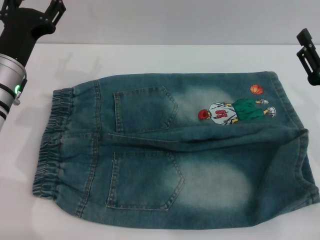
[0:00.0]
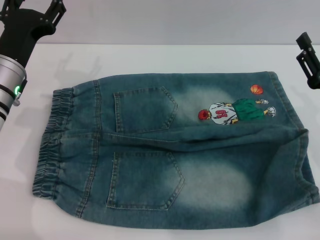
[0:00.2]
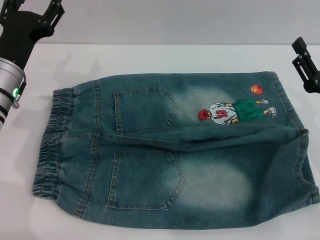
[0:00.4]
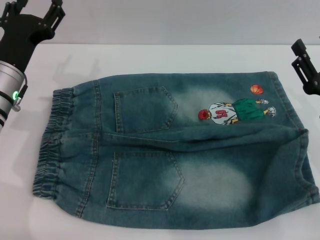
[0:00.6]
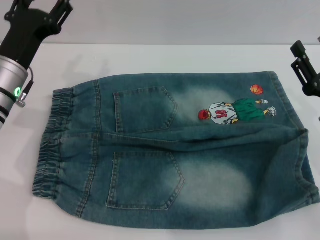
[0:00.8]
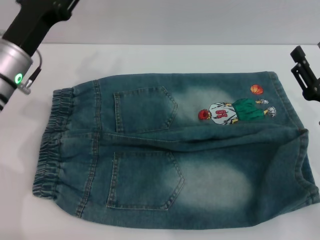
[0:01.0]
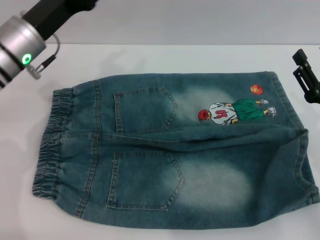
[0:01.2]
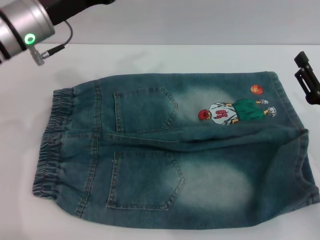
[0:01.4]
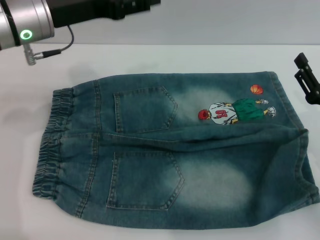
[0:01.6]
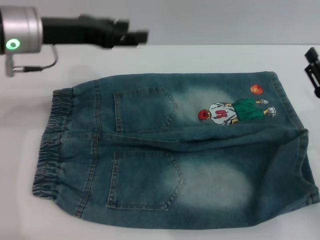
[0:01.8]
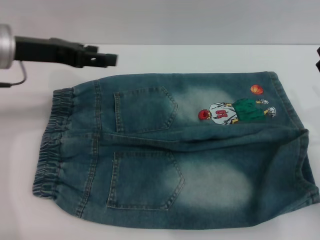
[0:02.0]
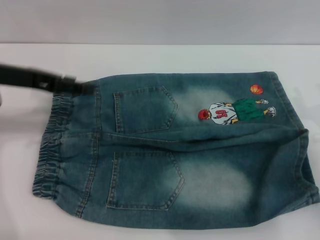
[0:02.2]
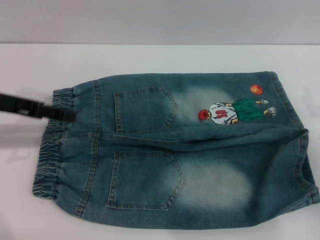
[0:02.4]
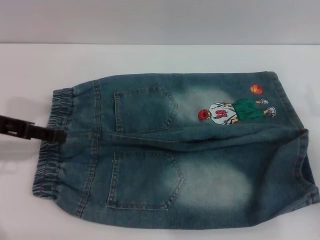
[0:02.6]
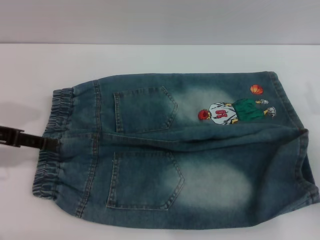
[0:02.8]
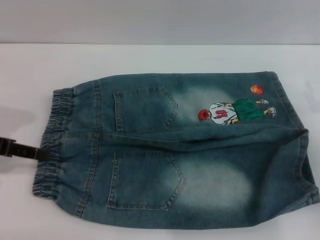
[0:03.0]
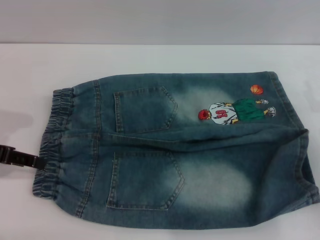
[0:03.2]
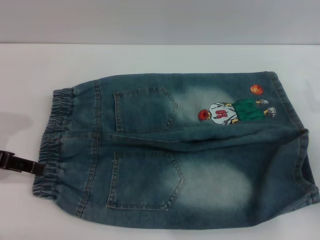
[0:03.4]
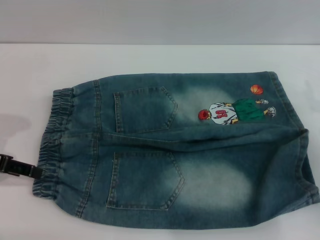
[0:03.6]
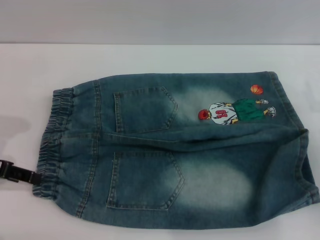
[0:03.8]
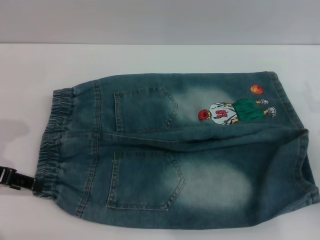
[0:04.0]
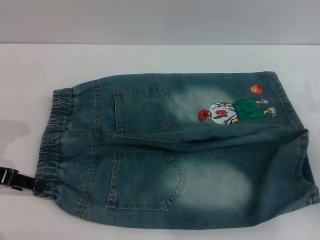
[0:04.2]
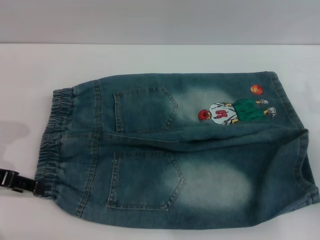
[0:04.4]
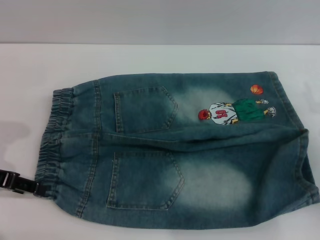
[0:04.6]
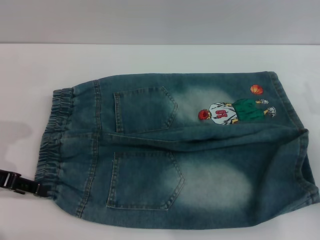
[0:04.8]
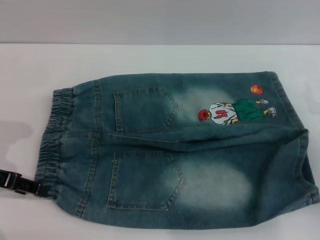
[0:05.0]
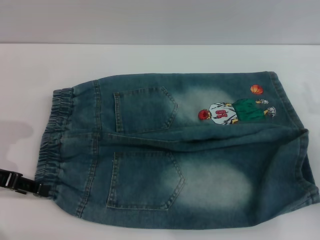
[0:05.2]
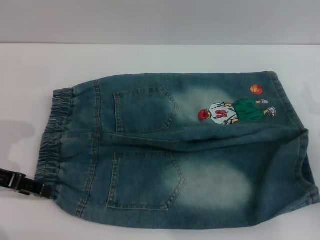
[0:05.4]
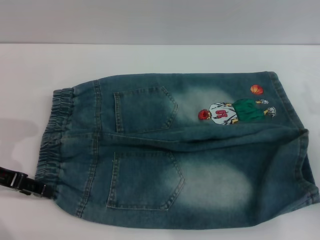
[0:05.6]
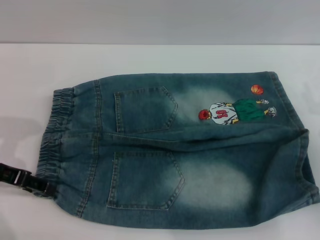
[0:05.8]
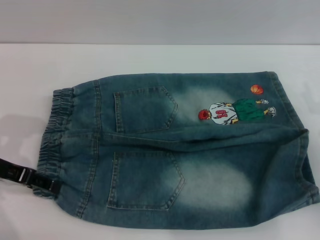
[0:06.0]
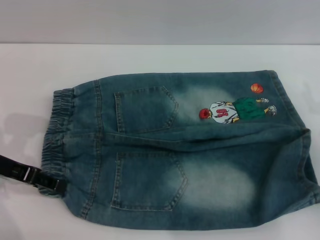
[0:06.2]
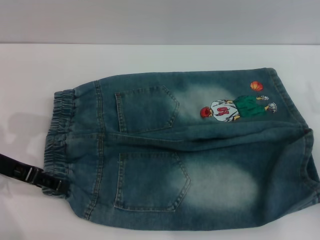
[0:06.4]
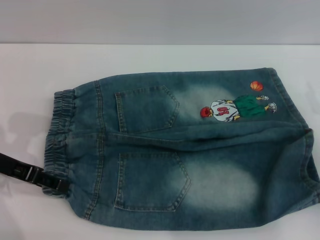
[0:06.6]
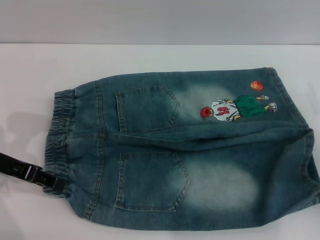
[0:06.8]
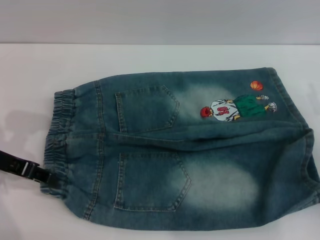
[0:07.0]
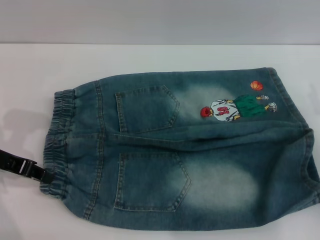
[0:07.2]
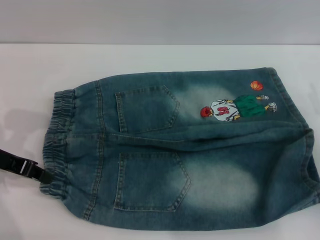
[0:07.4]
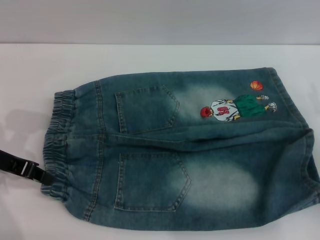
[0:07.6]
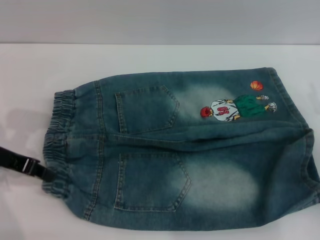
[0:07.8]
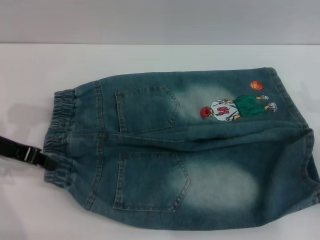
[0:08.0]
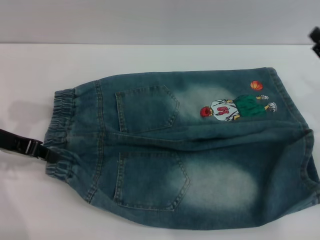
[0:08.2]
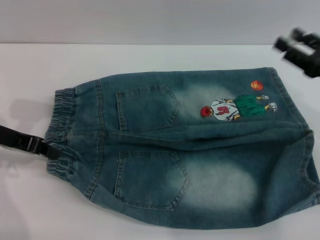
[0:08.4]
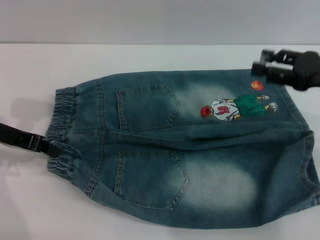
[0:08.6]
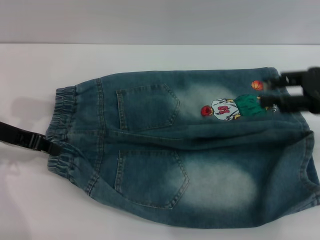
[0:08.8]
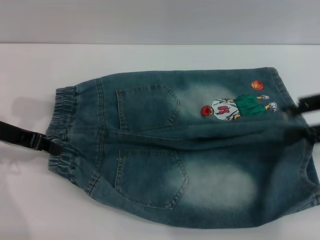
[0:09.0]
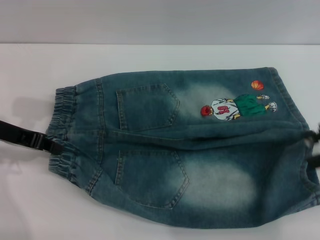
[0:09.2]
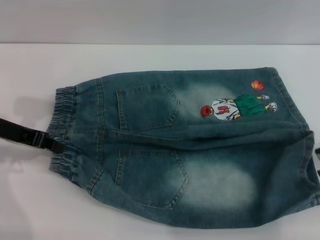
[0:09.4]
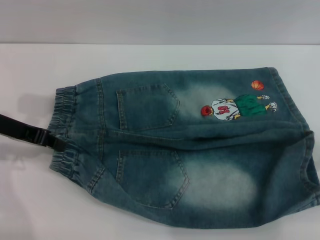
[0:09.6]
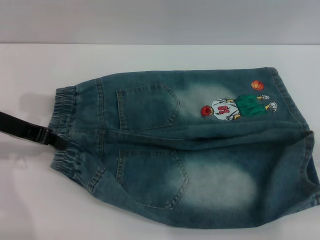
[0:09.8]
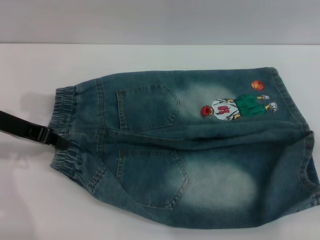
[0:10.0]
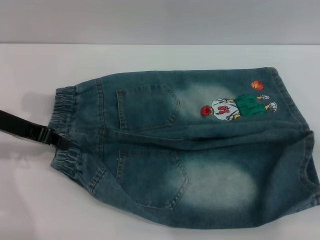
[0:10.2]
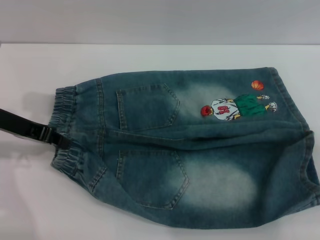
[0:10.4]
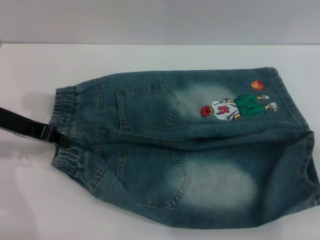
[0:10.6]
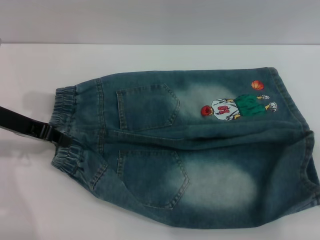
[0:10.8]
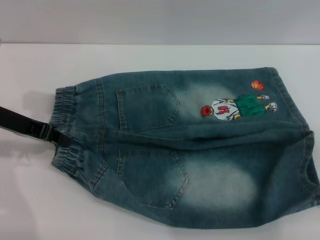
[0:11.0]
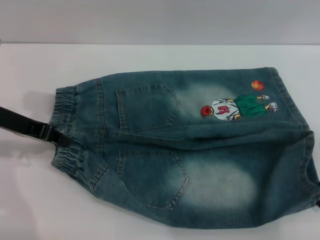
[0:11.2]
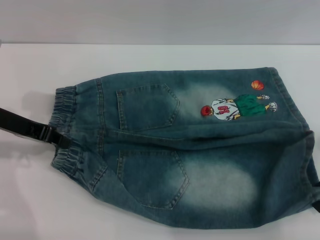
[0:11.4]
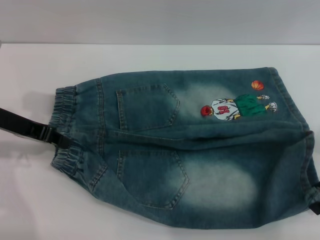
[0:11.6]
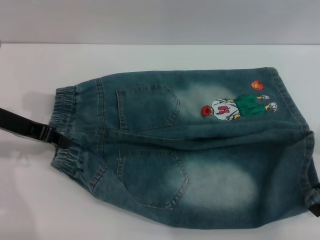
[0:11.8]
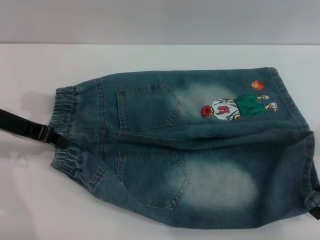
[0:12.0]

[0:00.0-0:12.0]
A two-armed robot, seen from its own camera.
0:00.0 to 0:01.6: The left gripper is displaced upward by approximately 10 cm.
0:01.6 to 0:03.0: The left gripper heads to the left and backward, covering about 15 cm.
0:03.0 to 0:06.0: The grippers make only small movements.
0:06.0 to 0:07.6: The left gripper closes.
0:07.6 to 0:09.0: The right gripper shifts about 15 cm upward.
0:09.0 to 0:10.4: The right gripper changes place by roughly 5 cm.
0:10.4 to 0:12.0: There are only small adjustments of the grippers.

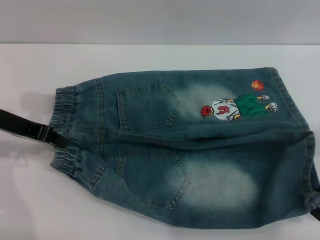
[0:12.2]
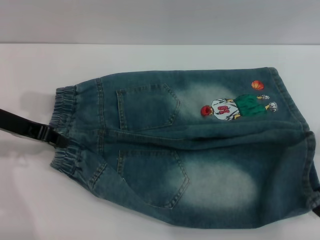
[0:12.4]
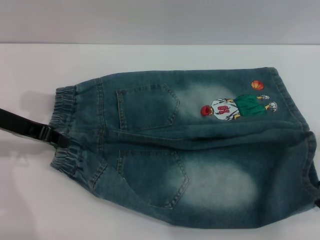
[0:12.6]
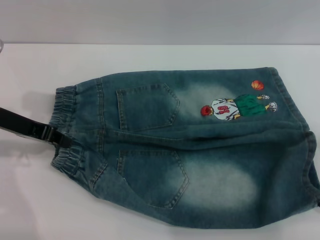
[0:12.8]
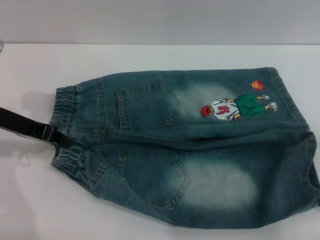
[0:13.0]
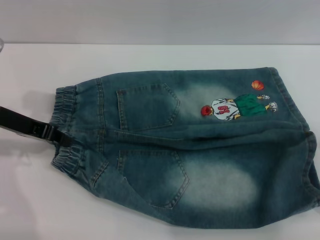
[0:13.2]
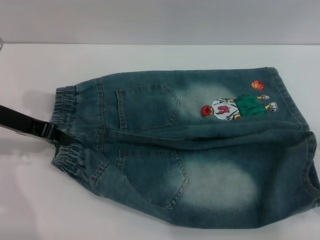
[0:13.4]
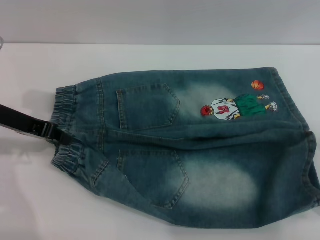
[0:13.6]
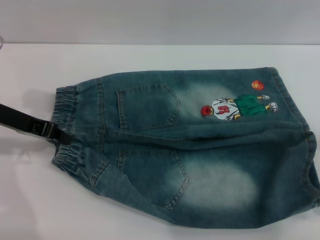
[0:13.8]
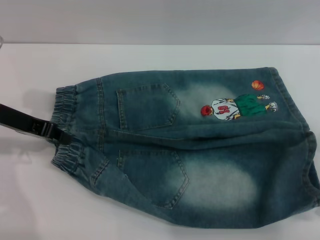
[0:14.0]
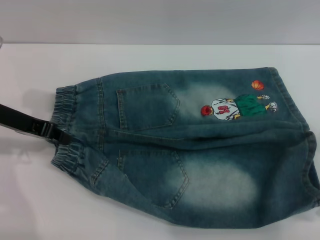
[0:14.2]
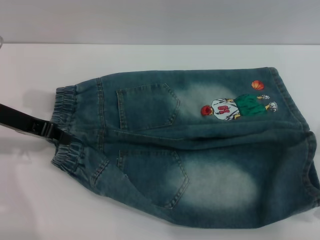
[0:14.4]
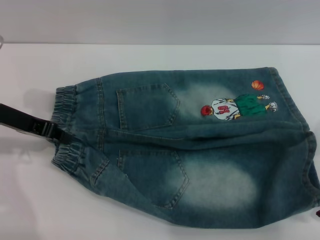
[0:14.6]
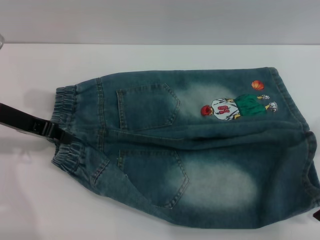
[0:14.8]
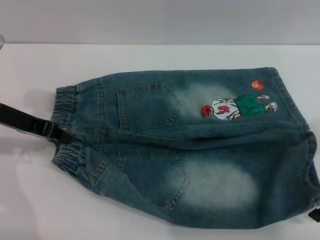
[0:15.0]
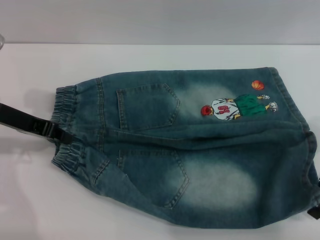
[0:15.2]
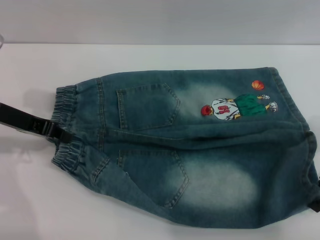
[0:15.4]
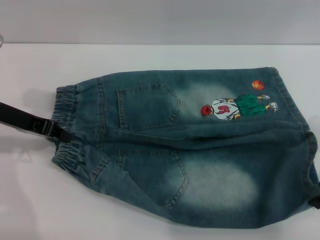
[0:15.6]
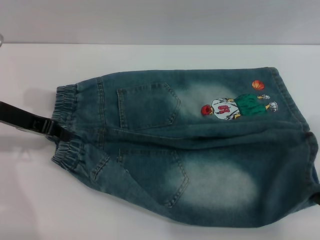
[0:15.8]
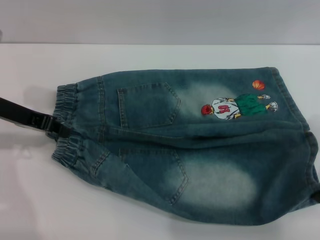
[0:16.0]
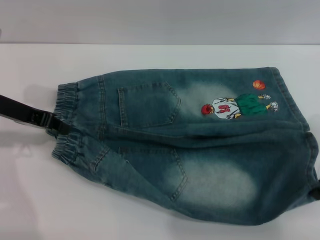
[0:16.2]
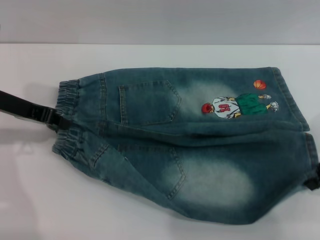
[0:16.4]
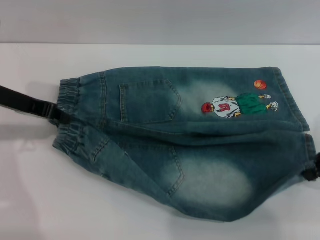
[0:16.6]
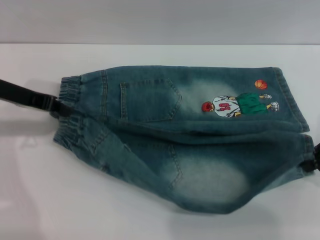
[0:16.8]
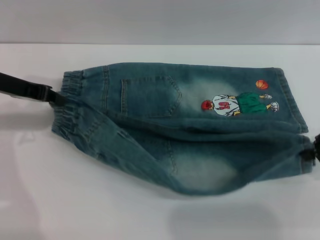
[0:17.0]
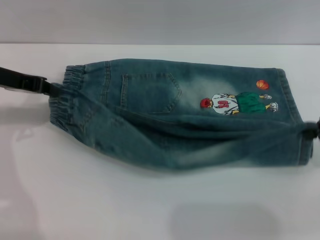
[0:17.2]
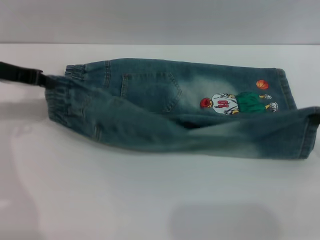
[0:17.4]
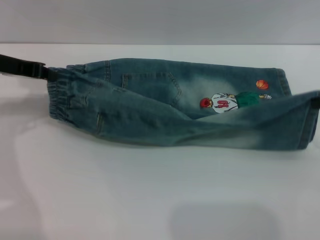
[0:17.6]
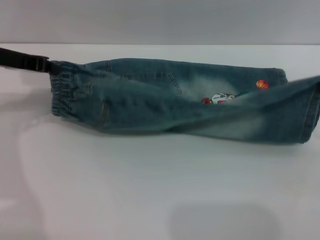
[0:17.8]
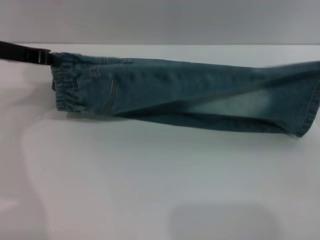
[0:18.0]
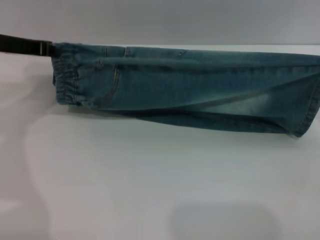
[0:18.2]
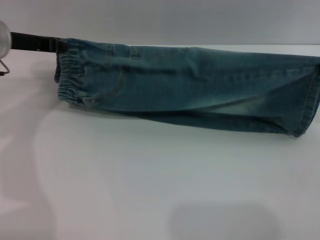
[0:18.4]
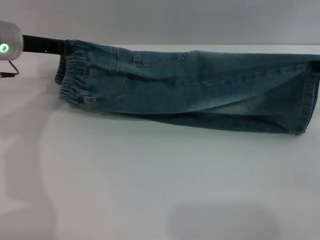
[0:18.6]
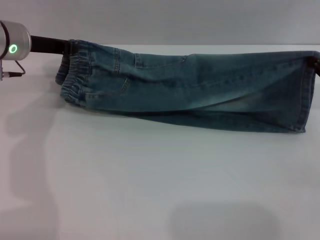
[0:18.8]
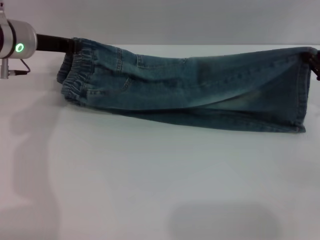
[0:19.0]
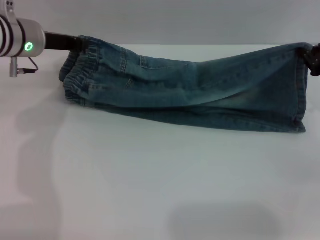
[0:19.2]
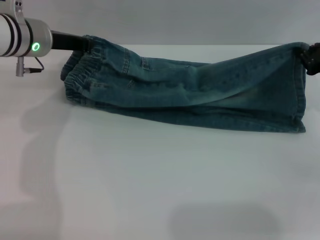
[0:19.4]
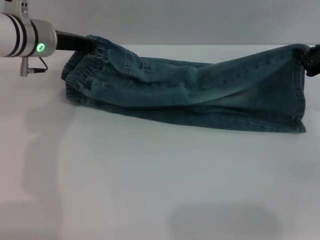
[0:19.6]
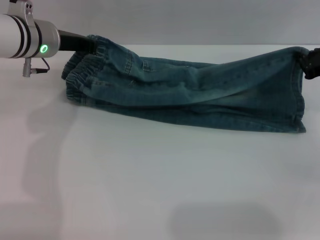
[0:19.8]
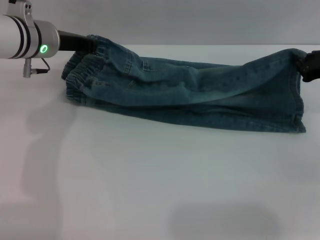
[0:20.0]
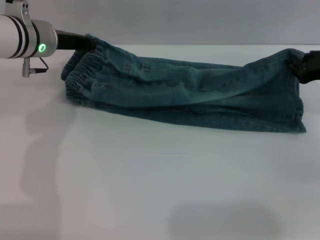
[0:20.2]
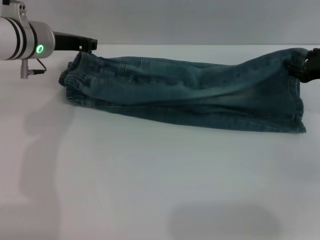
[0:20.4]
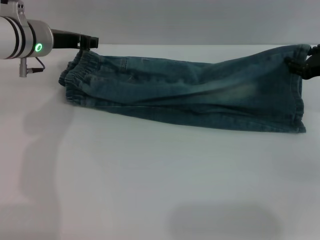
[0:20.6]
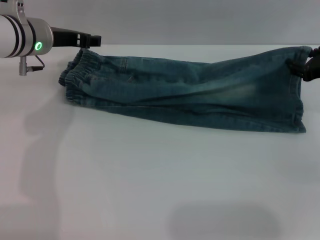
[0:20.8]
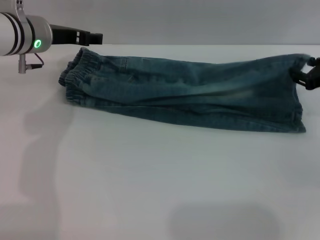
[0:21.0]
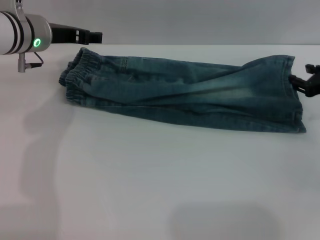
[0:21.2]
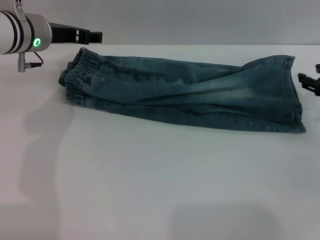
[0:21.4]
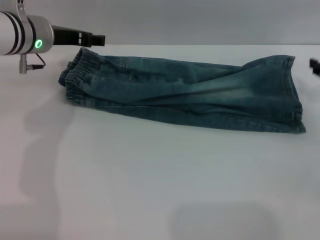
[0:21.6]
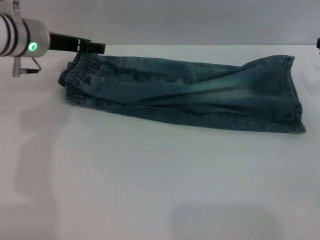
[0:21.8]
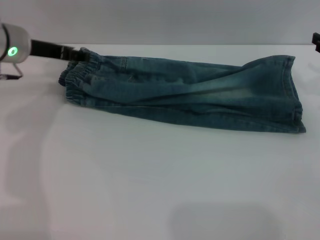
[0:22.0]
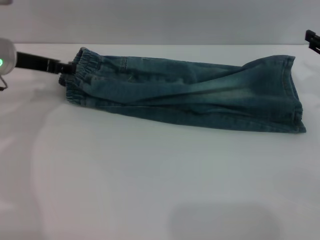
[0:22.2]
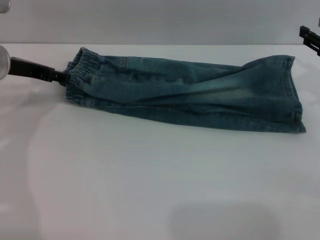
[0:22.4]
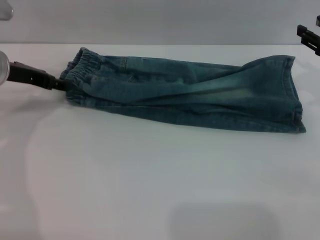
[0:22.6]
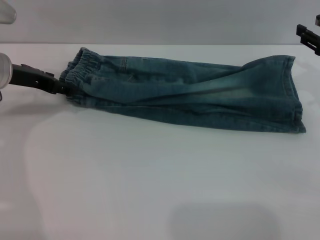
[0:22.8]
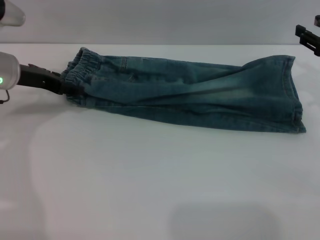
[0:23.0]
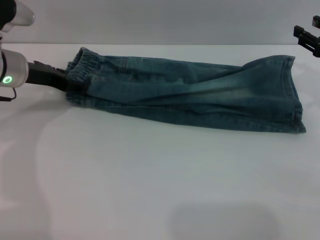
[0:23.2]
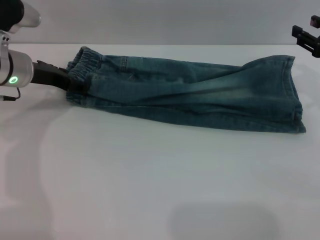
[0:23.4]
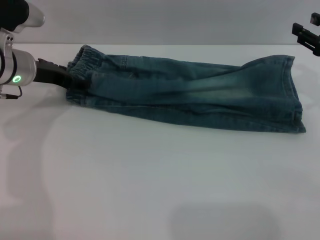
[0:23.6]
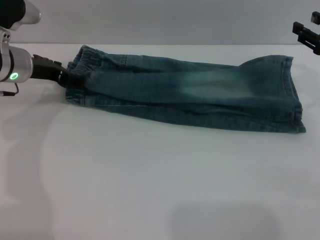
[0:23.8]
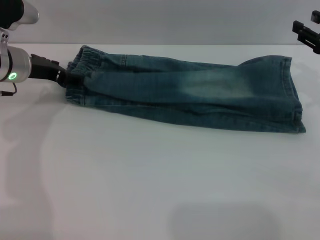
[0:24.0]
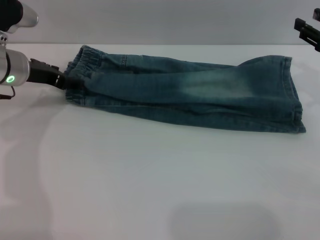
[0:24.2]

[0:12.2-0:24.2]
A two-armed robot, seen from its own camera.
Step, 0:12.2 to 0:22.4: Fold the bottom of the pants upward with both grippers.
0:12.2 to 0:13.8: The grippers stay close to where they were, moving slightly.
0:15.2 to 0:16.6: The right gripper closes.
0:16.6 to 0:18.2: The right gripper heads to the right, covering approximately 5 cm.
0:18.2 to 0:19.8: The right gripper heads forward and to the left, covering roughly 10 cm, while the left gripper heads to the right, covering roughly 5 cm.
0:19.8 to 0:21.2: The left gripper opens; the right gripper opens up.
0:21.2 to 0:22.6: The left gripper heads to the left, covering roughly 5 cm.
0:22.6 to 0:24.2: The grippers make only small movements.
